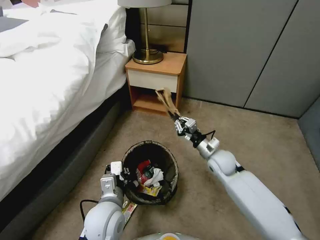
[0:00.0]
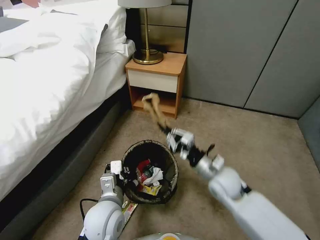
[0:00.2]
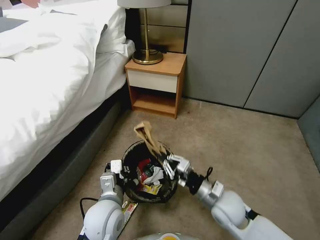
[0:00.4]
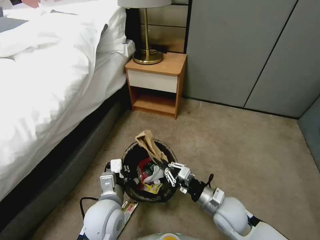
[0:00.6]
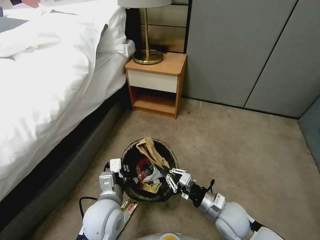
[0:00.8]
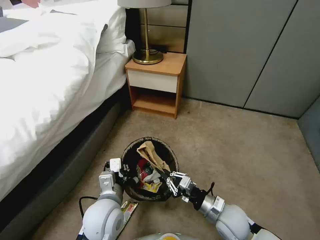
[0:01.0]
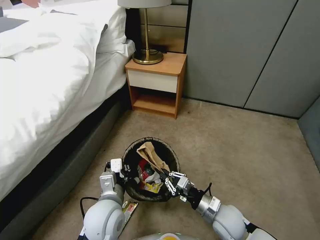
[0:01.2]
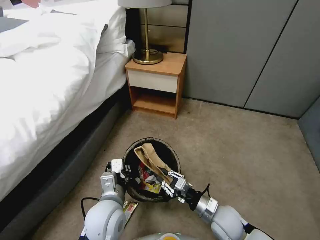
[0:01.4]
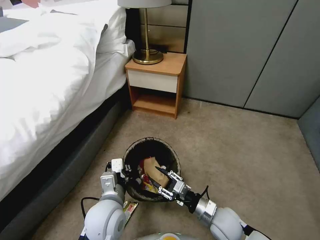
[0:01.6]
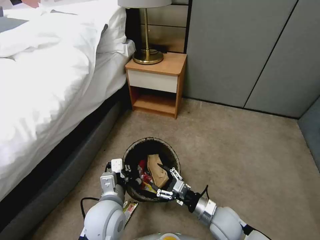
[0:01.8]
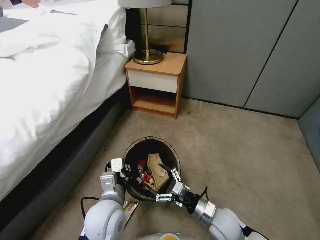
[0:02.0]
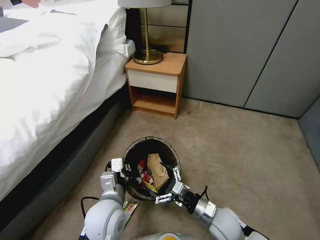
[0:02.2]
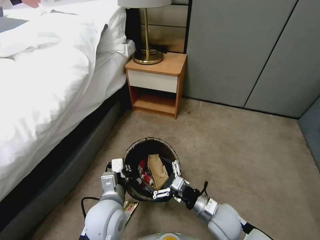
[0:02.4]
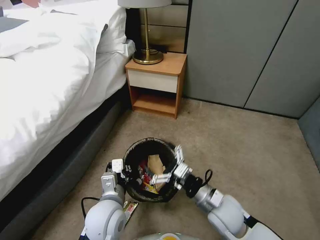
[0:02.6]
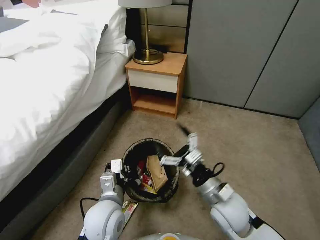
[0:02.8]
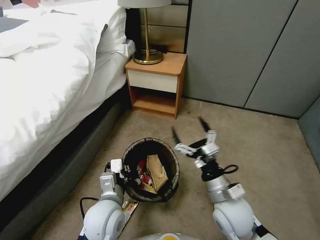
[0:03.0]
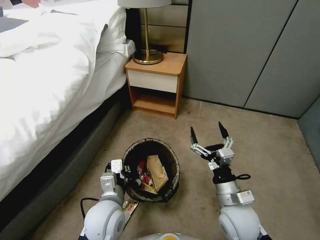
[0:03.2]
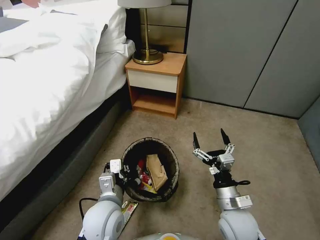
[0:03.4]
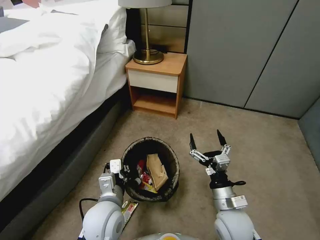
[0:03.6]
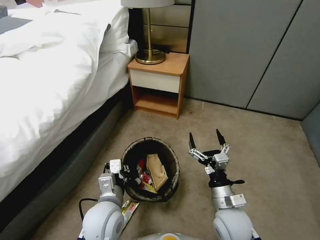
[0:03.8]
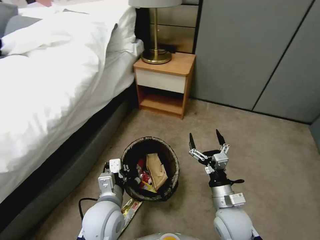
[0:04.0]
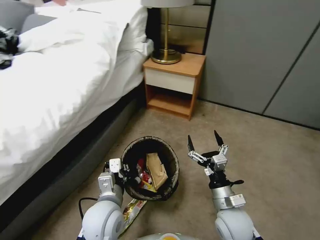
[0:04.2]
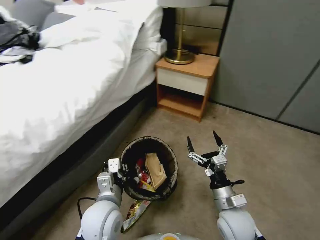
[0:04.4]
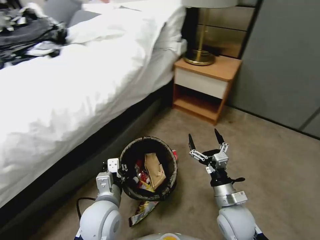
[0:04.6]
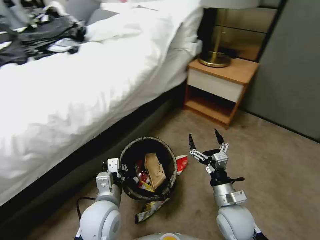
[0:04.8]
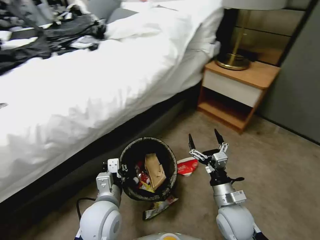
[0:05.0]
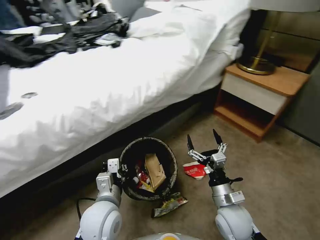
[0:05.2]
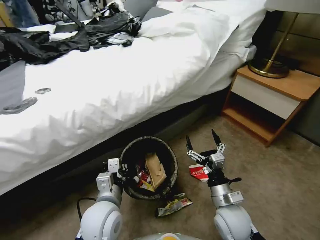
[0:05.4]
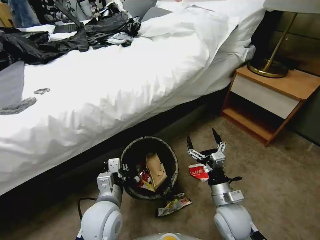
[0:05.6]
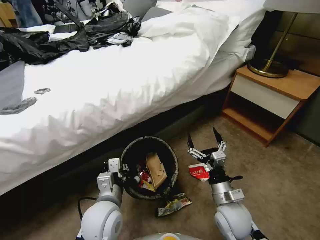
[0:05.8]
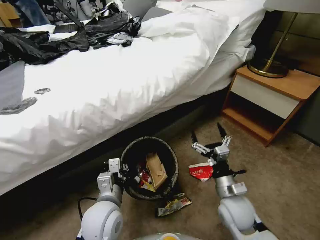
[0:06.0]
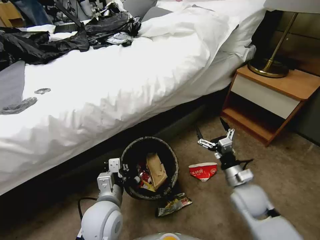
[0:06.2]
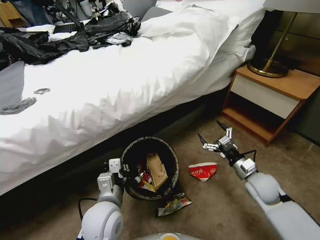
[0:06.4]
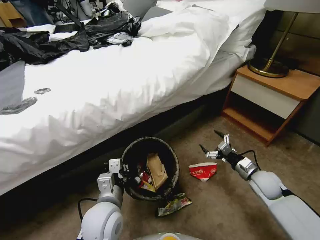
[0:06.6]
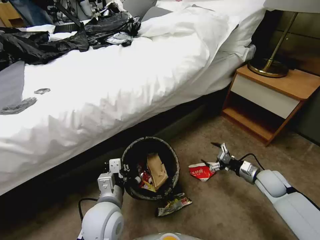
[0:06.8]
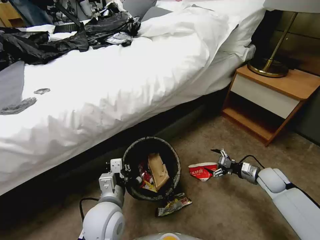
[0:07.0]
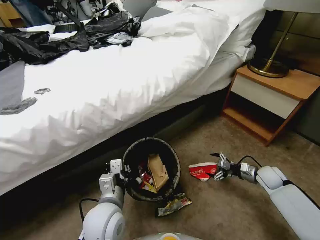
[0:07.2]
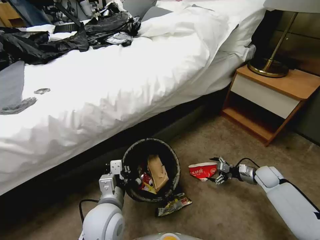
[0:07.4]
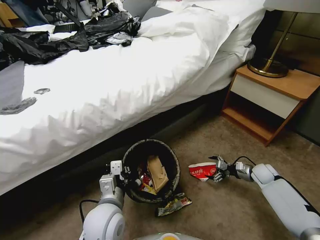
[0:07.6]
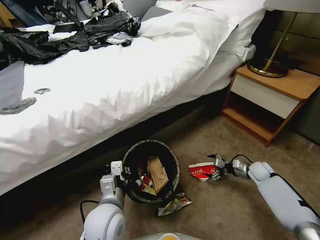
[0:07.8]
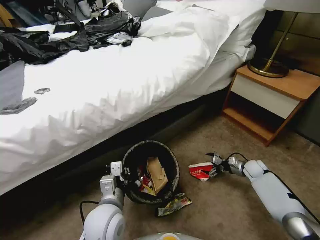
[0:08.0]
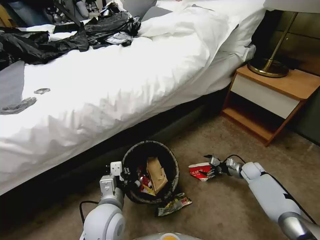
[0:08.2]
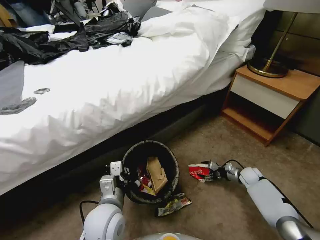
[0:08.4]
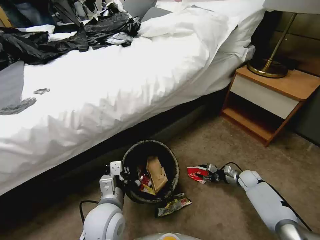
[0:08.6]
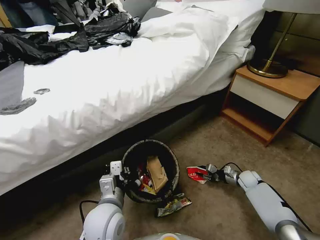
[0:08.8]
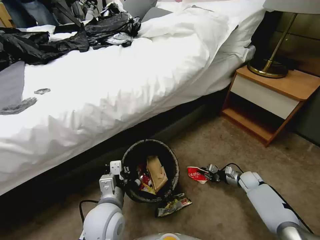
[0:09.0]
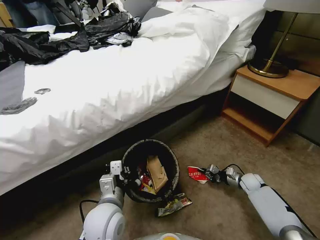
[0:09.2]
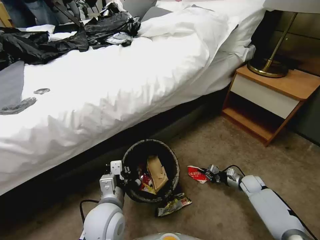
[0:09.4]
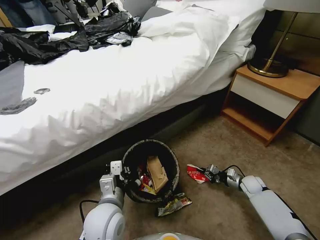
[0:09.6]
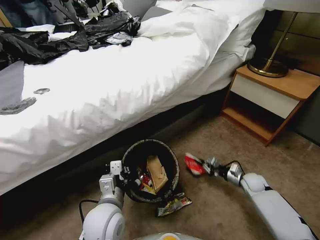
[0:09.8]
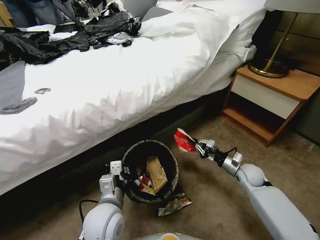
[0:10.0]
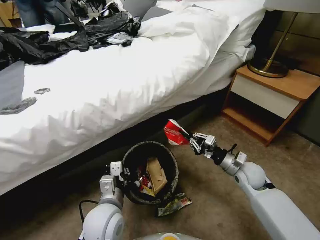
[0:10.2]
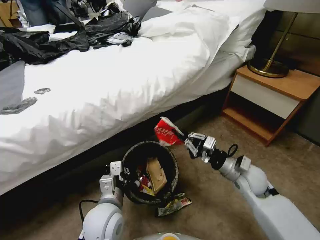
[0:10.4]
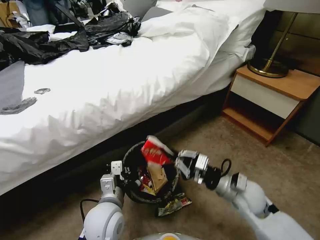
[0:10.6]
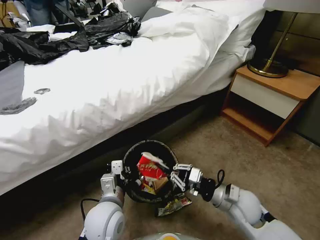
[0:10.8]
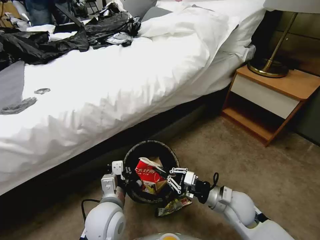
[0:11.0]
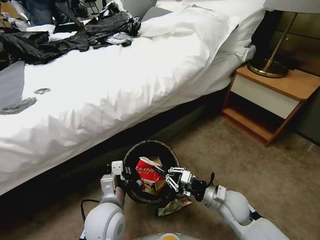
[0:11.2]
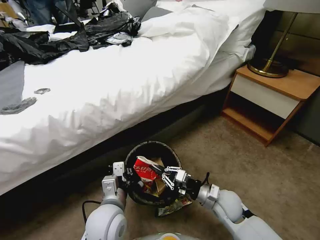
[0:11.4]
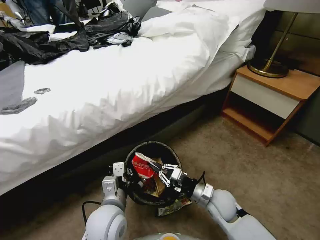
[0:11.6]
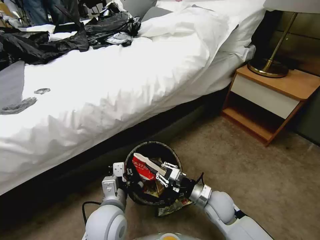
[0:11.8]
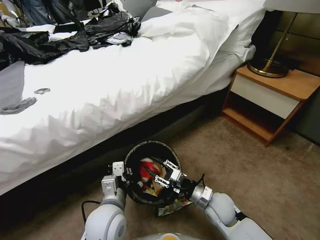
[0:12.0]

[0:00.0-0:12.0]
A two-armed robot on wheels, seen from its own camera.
Task of the whole recording: Pick up the trash bin, then pick up the garbage from the floor and place it into the trash bin.
0:00.0 to 0:01.6: The right gripper moves backward and downward, approximately 20 cm, and opens up.
0:01.6 to 0:03.0: The right gripper is displaced upward by roughly 10 cm, and opens up.
0:03.0 to 0:04.4: The right gripper goes about 5 cm downward.
0:06.0 to 0:07.6: The right gripper shifts about 30 cm to the right, forward and downward.
0:07.6 to 0:09.0: The right gripper travels downward by roughly 5 cm, and closes up.
0:09.0 to 0:10.4: The right gripper shifts some 25 cm upward and to the left.
0:10.4 to 0:12.0: The right gripper moves downward, to the left and backward, roughly 15 cm, and opens up.

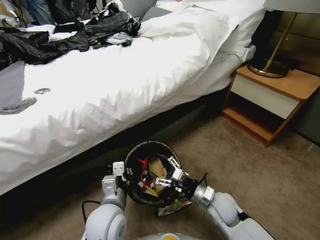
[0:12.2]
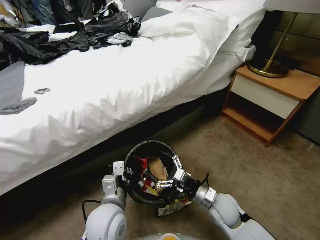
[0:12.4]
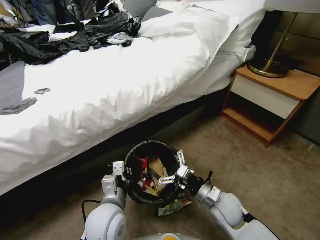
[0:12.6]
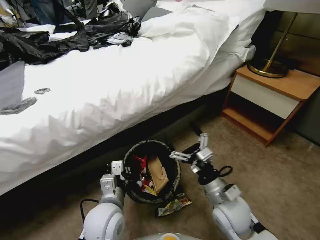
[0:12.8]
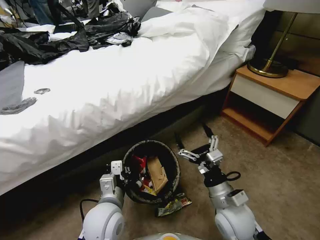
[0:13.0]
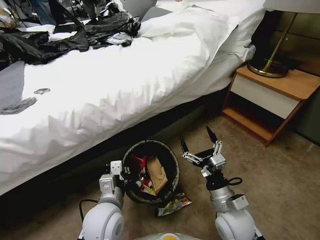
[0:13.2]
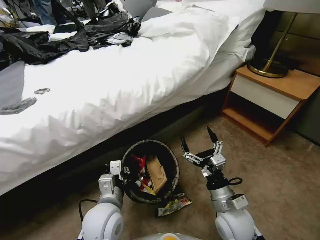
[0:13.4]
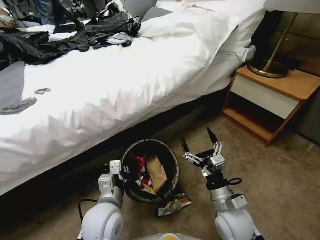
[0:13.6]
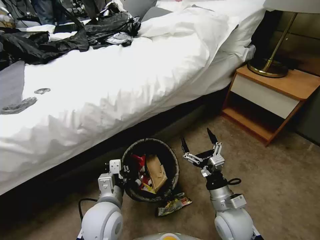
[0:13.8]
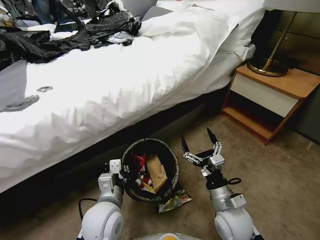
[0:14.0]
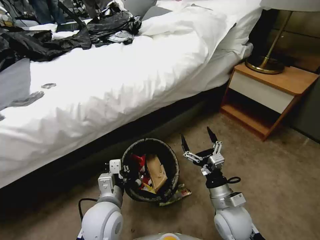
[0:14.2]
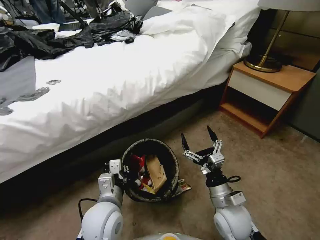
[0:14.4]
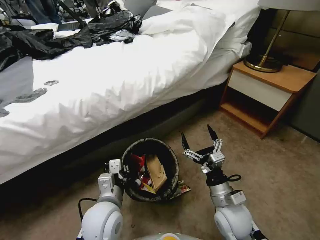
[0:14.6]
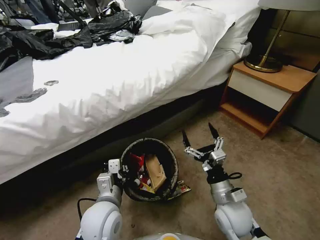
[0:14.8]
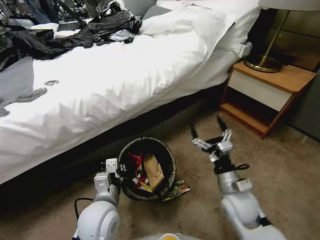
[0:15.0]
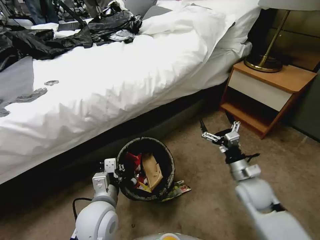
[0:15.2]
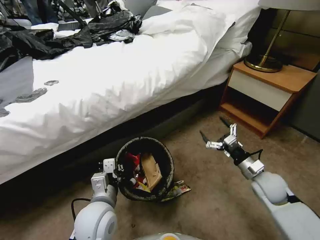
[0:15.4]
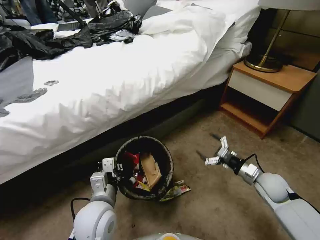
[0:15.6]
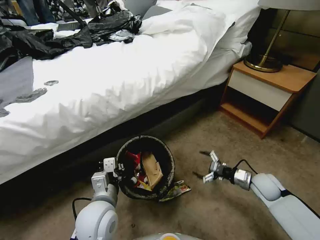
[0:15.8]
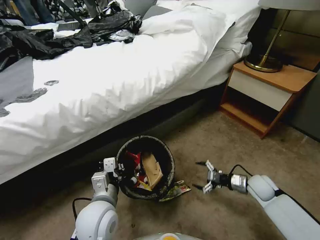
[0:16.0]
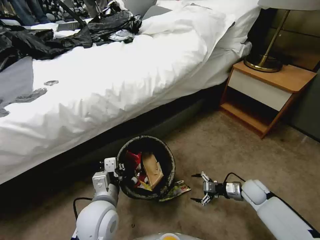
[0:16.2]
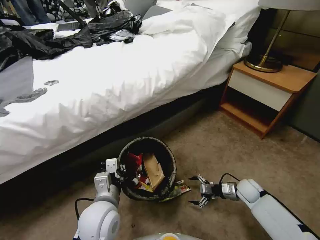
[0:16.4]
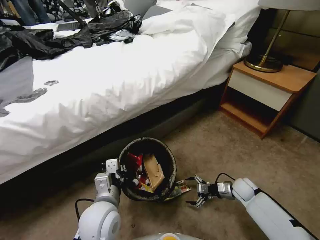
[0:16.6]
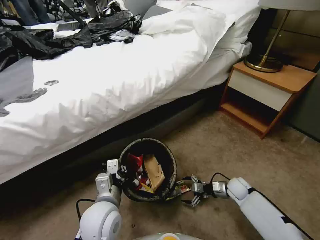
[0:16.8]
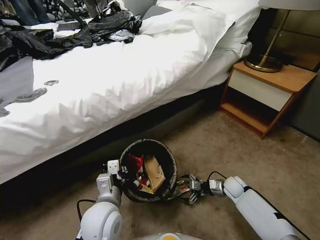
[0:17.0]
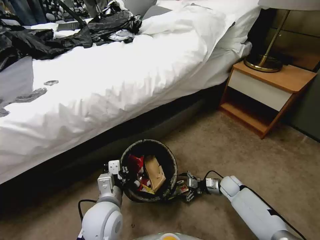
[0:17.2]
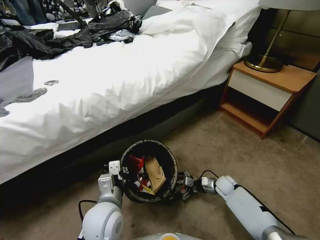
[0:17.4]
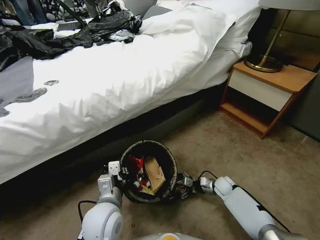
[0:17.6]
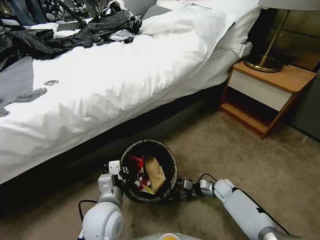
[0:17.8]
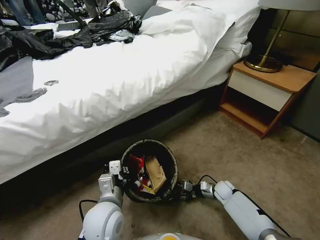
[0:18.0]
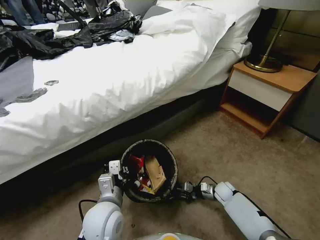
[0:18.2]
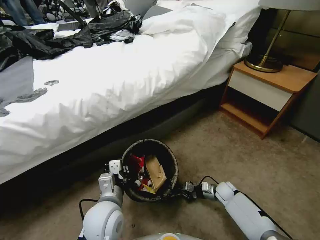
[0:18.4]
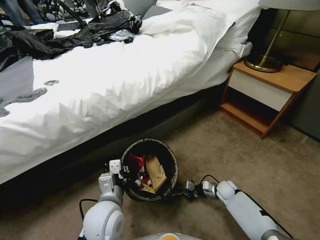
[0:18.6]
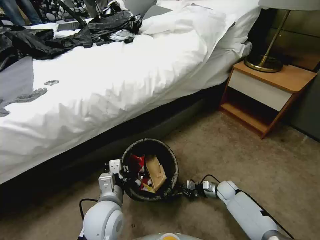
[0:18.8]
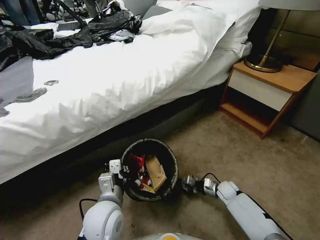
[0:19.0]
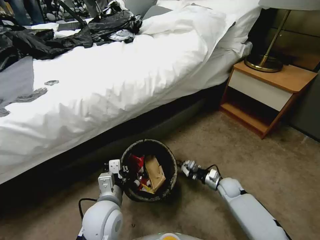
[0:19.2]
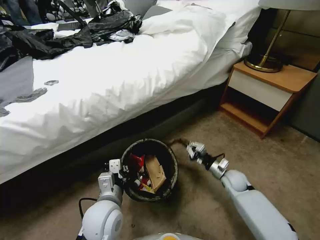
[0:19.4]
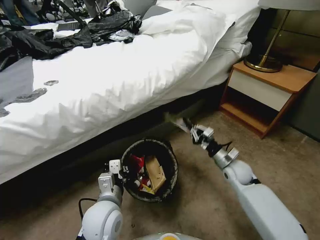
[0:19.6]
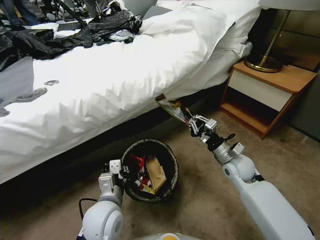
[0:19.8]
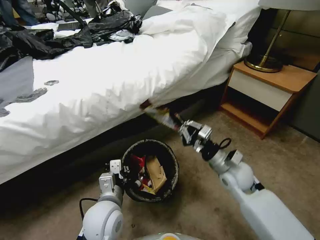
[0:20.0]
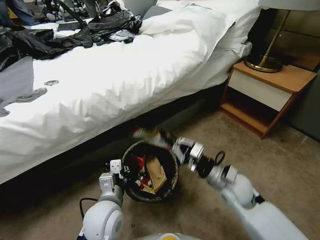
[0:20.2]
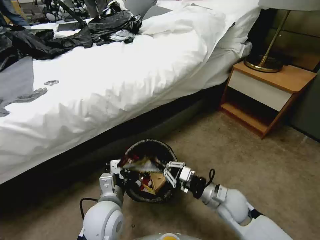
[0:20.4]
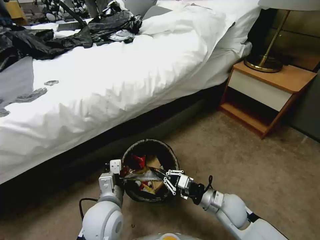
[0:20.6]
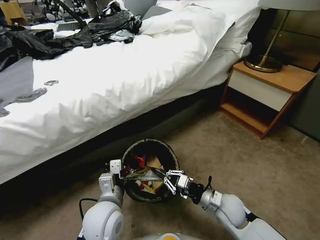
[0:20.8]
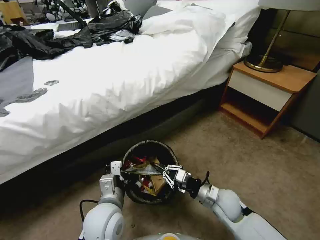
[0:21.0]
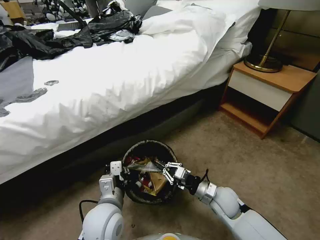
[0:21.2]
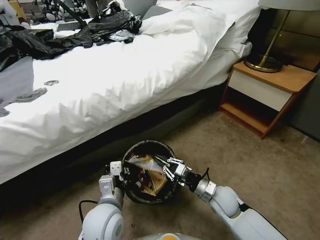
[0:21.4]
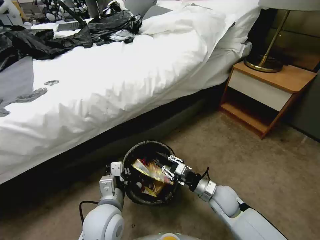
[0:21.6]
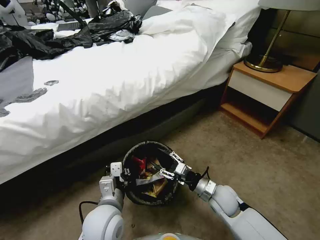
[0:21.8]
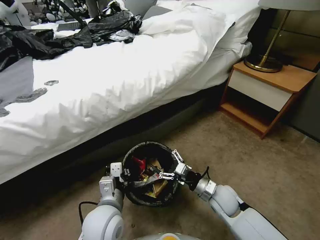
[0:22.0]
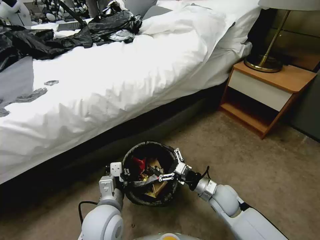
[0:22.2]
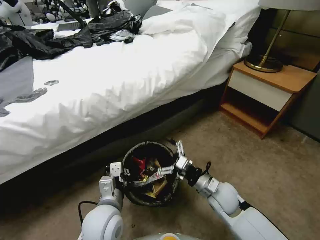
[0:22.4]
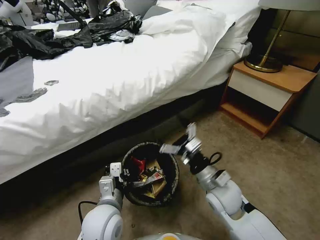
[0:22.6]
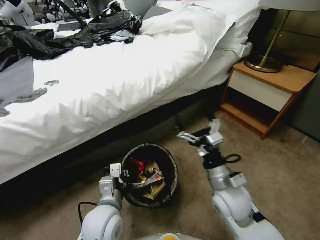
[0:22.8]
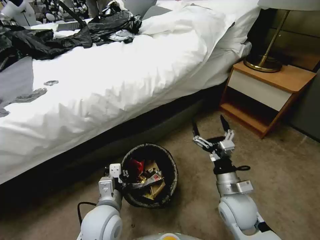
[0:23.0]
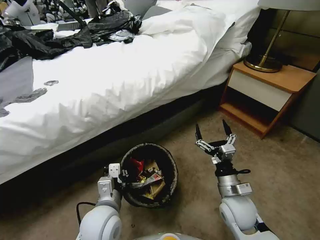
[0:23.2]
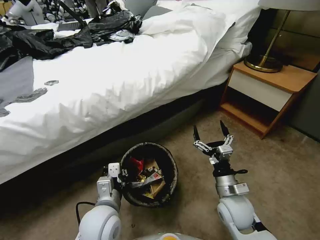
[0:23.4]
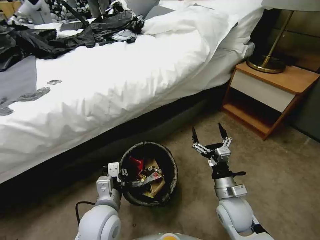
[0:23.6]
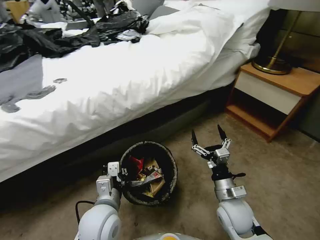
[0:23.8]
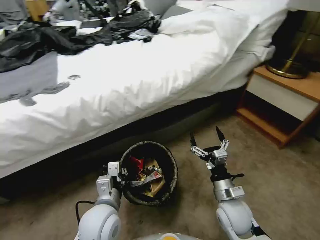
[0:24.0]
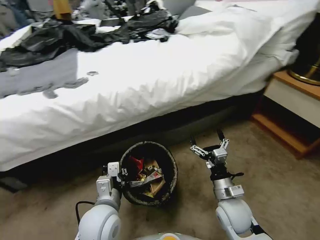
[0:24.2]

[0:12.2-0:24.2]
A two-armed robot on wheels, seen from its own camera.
Task of the whole recording: Pick up the trash bin, then pick up the garbage from the floor and place it into the trash bin.
0:12.2 to 0:13.8: The right gripper heads upward and backward, covering some 5 cm.
0:13.8 to 0:15.2: The right gripper heads to the right and forward, covering approximately 10 cm.
0:15.2 to 0:16.6: The right gripper is displaced downward by about 20 cm.
0:16.6 to 0:18.2: The right gripper heads downward and to the left, covering about 10 cm, and closes its fingers.
0:18.2 to 0:19.8: The right gripper shifts some 25 cm upward.
0:19.8 to 0:21.2: The right gripper moves downward and backward, roughly 10 cm.
0:21.2 to 0:22.6: The right gripper travels upward by approximately 10 cm, and opens its fingers.
0:22.6 to 0:24.2: The right gripper heads downward, covering about 5 cm.
